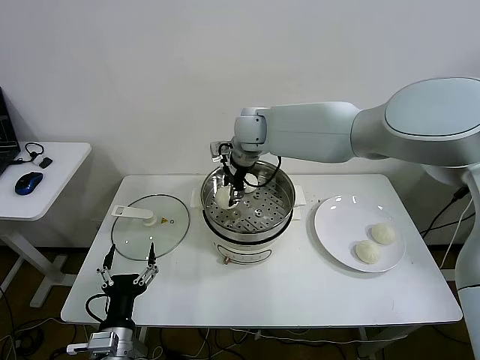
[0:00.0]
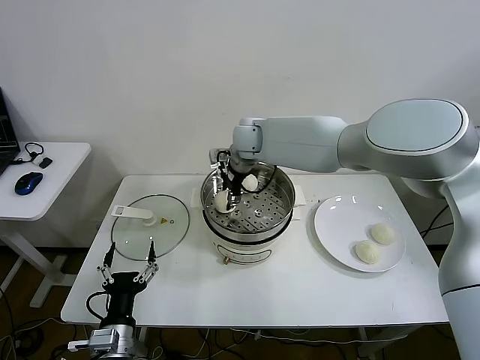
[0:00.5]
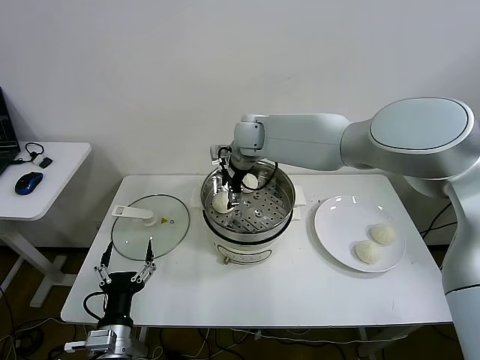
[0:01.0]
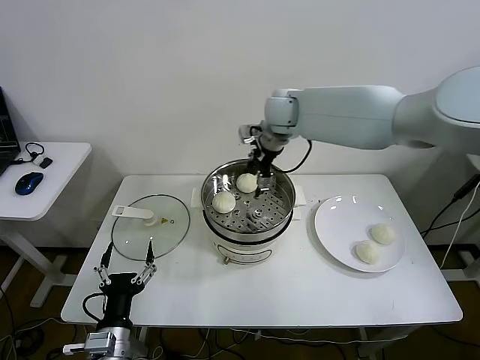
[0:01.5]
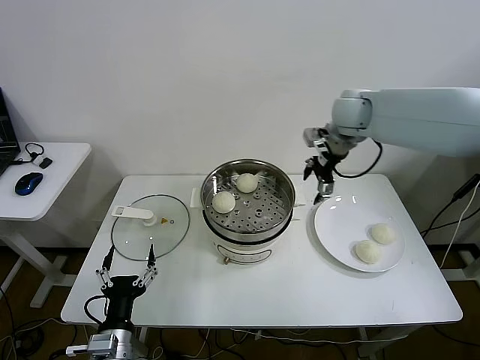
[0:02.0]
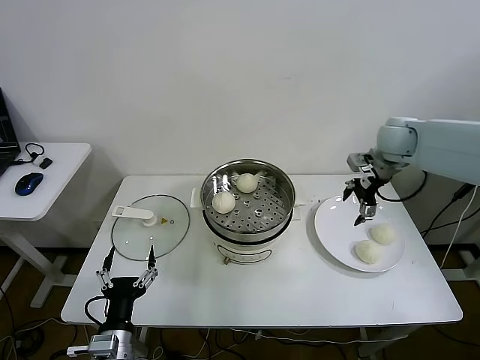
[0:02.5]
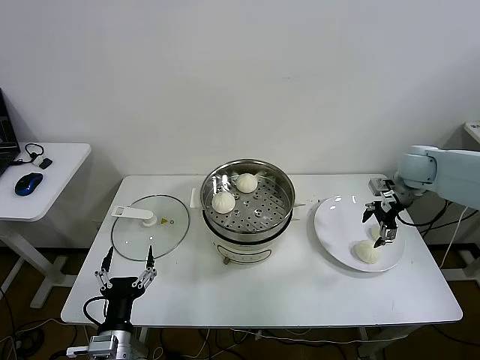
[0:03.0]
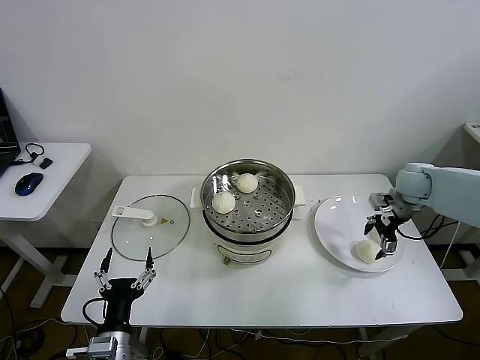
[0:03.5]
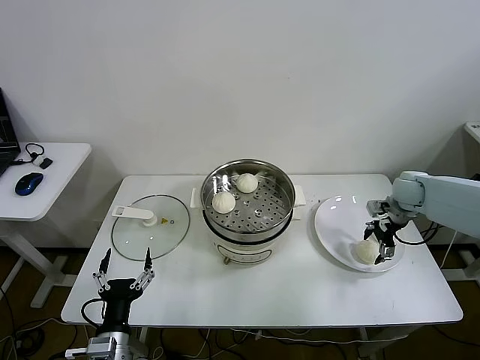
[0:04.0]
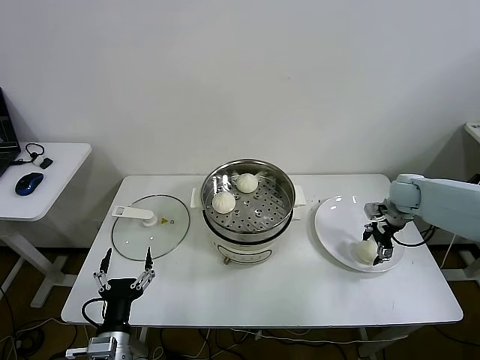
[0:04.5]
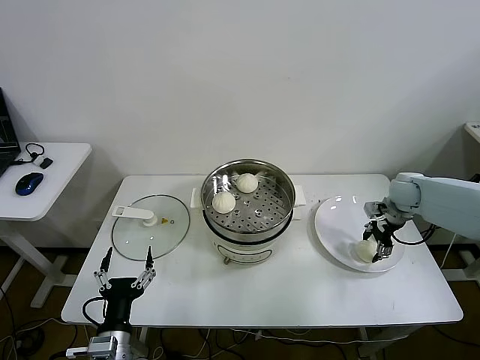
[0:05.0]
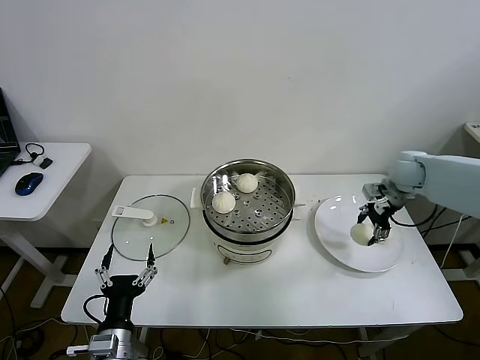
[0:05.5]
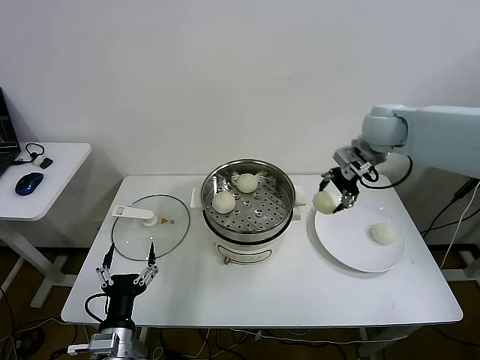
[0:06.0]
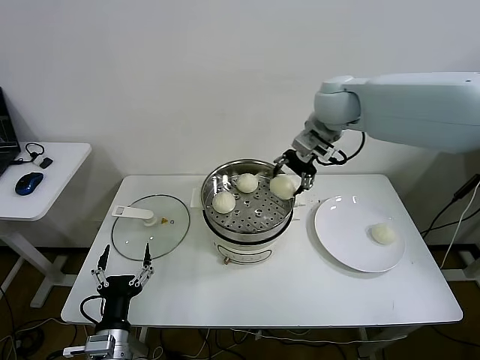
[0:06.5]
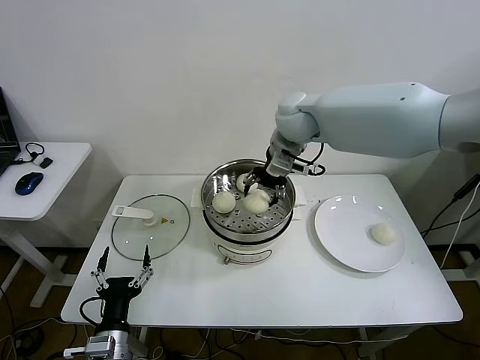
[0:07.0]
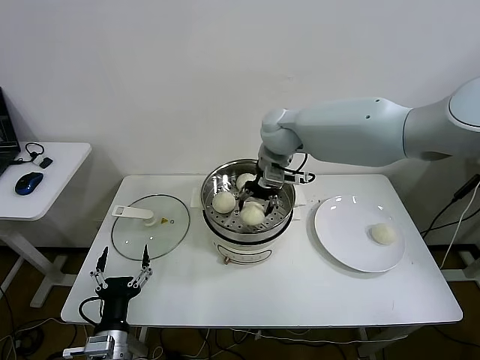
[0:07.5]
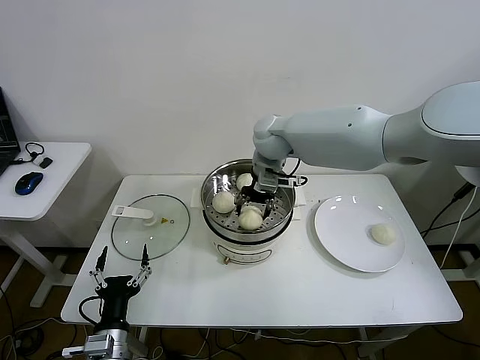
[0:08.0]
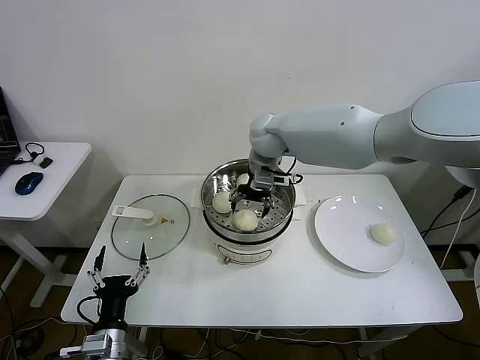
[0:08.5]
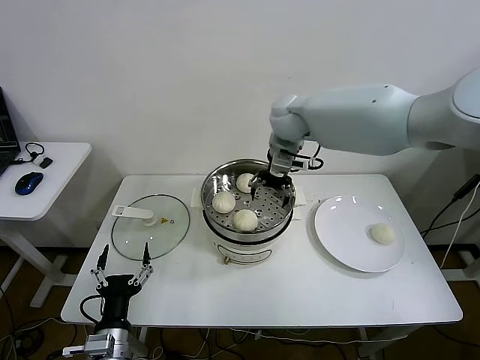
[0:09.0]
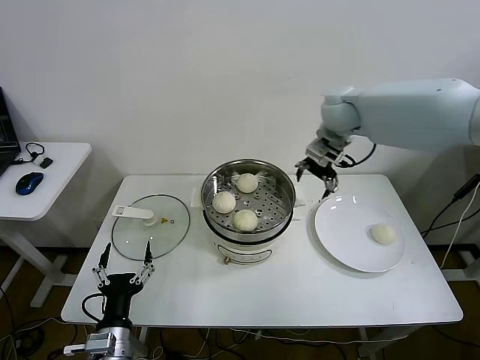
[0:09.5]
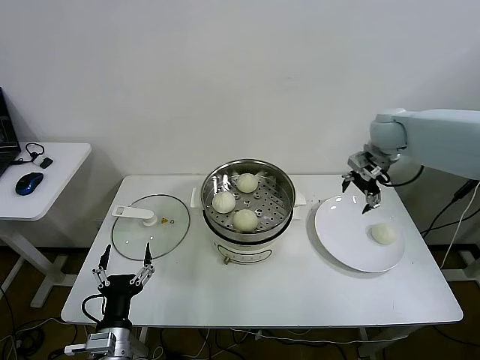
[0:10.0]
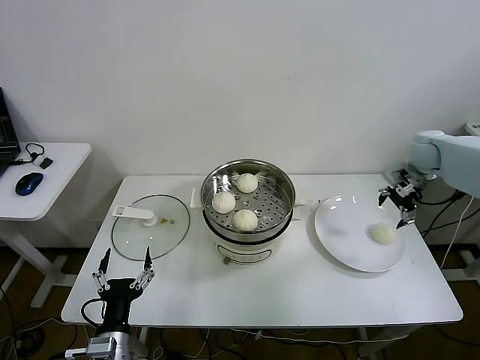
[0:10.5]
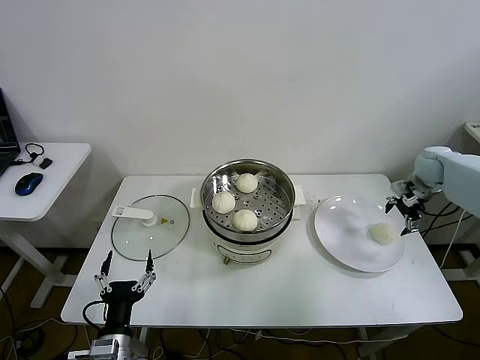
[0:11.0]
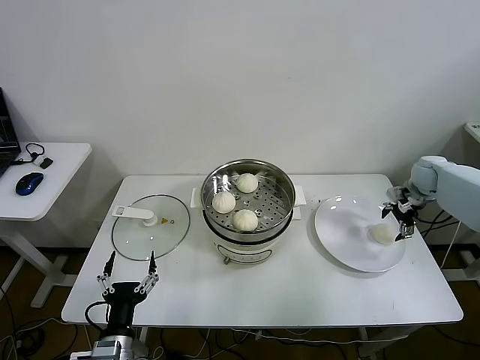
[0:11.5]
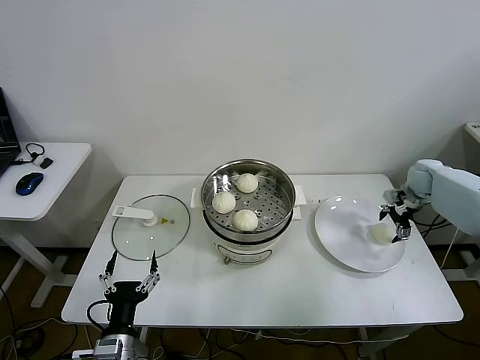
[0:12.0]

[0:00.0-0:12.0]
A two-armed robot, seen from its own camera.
Step, 0:01.5 to 0:04.5: Grasp the baozi in the plate with right gripper.
Step, 0:05.5 to 0:08.5: Place the baozi on the steamer with right gripper.
0:00.0 to 0:02.0: The right gripper travels to the right by about 25 cm, and opens.
0:02.0 to 0:04.0: The right gripper moves downward and to the right, about 25 cm.
0:04.0 to 0:06.0: The right gripper travels upward and to the left by approximately 25 cm, and closes.
0:06.0 to 0:08.0: The right gripper shifts approximately 20 cm to the left.
0:08.0 to 0:10.0: The right gripper shifts some 25 cm to the right, and opens.
0:10.0 to 0:12.0: The right gripper goes roughly 20 cm to the right and downward.

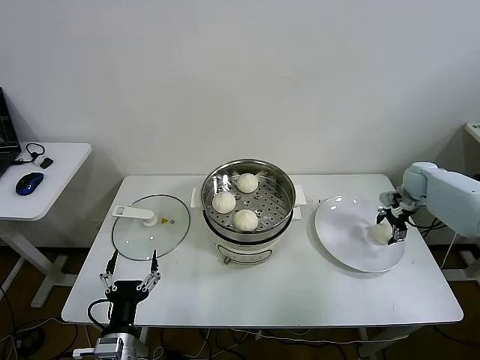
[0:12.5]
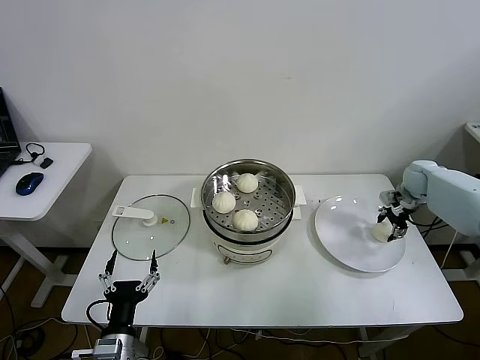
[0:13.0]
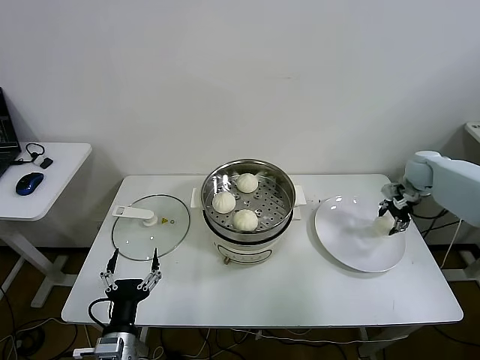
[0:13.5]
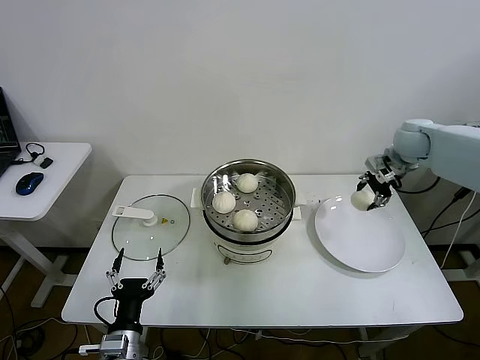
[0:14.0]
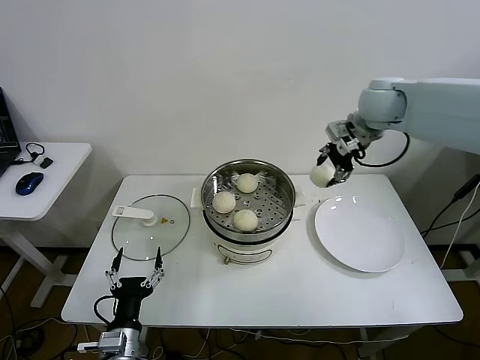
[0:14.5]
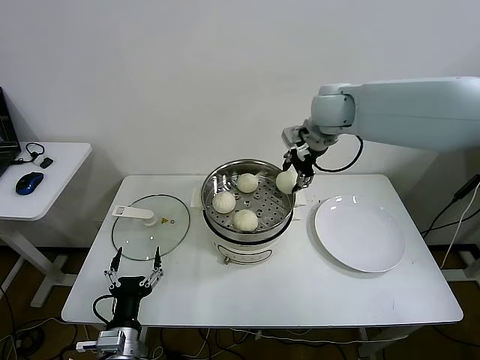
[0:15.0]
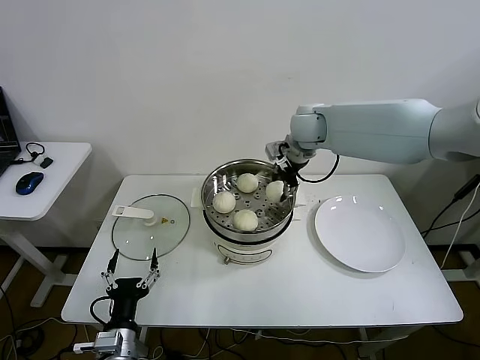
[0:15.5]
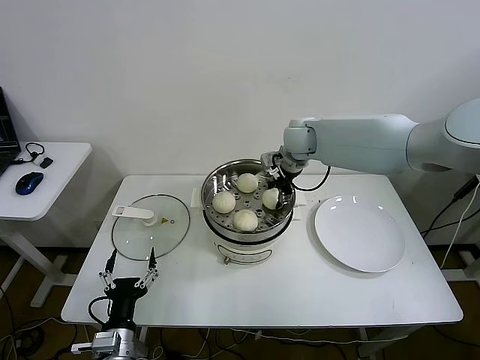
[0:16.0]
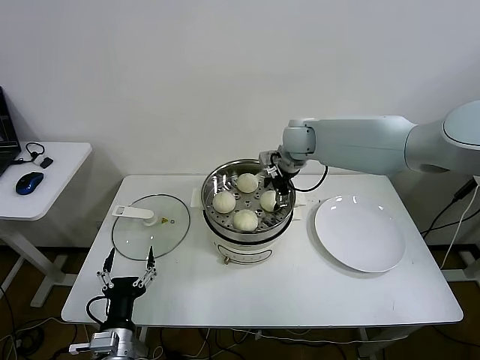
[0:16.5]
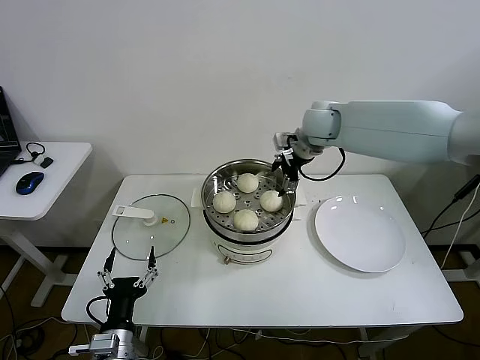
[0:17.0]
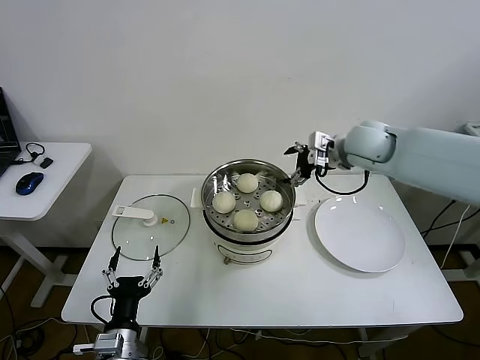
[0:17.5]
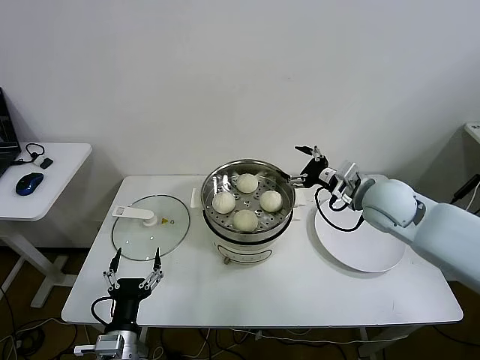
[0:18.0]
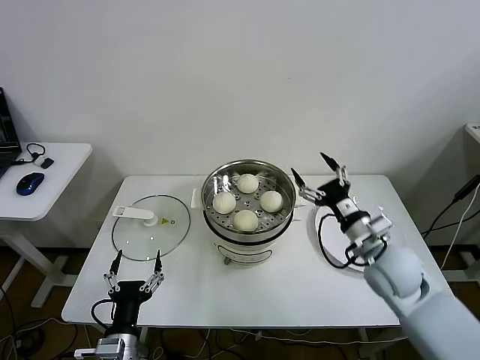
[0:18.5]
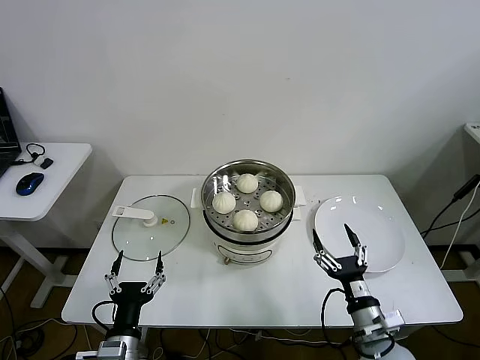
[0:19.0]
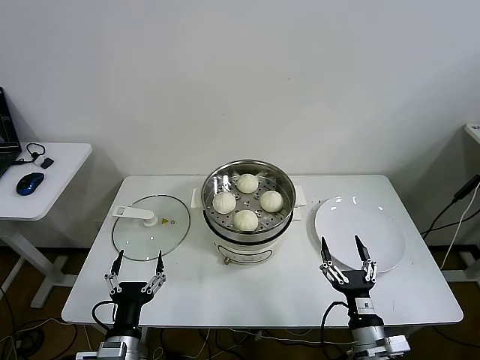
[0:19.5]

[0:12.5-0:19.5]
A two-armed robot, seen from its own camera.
Step, 0:13.0 to 0:16.5: Place the baozi on the steamer with right gripper.
0:12.5 to 0:14.5: The right gripper is displaced upward and to the left by roughly 30 cm, and closes up.
0:14.5 to 0:16.0: The right gripper is displaced to the left and downward by about 15 cm.
0:16.0 to 0:17.5: The right gripper travels to the right and backward by about 15 cm, and opens its fingers.
0:17.5 to 0:19.5: The right gripper is displaced backward and downward by about 50 cm.
